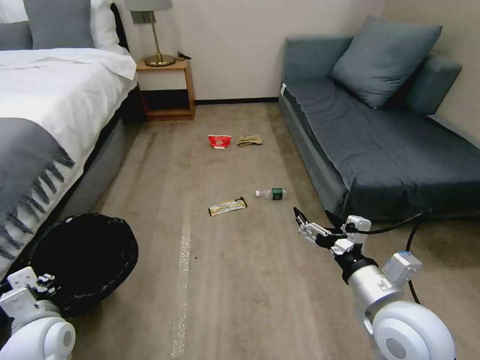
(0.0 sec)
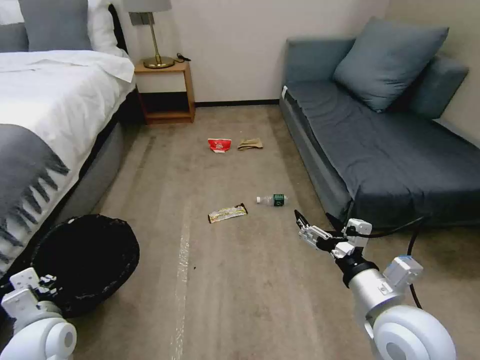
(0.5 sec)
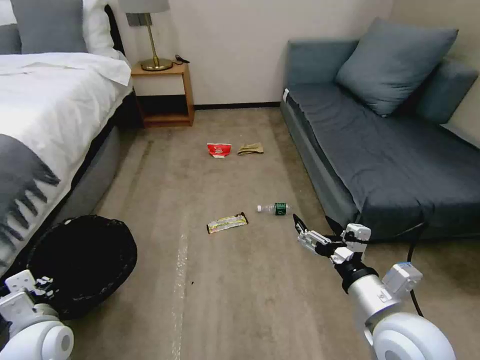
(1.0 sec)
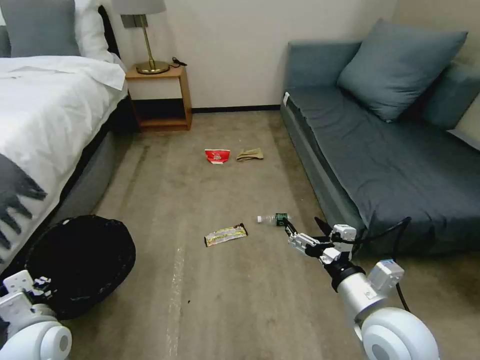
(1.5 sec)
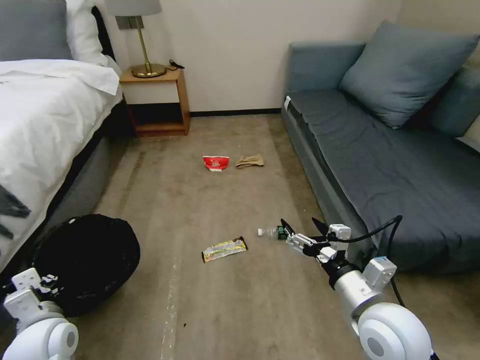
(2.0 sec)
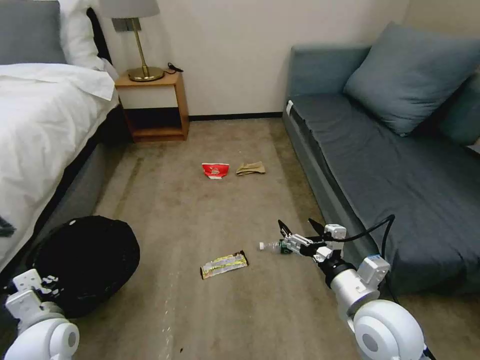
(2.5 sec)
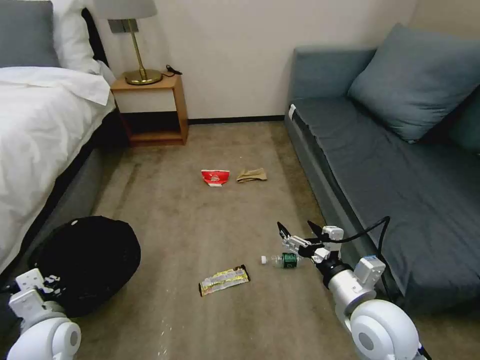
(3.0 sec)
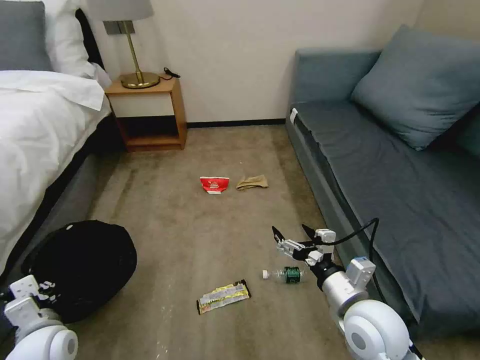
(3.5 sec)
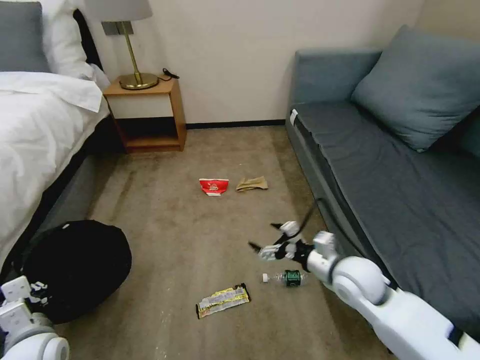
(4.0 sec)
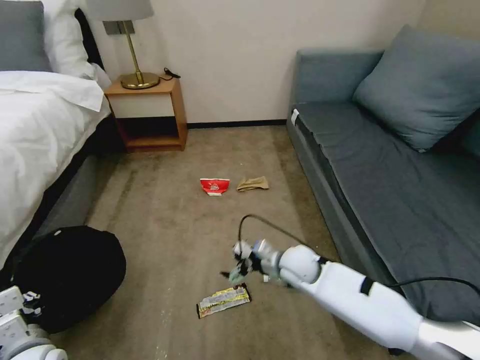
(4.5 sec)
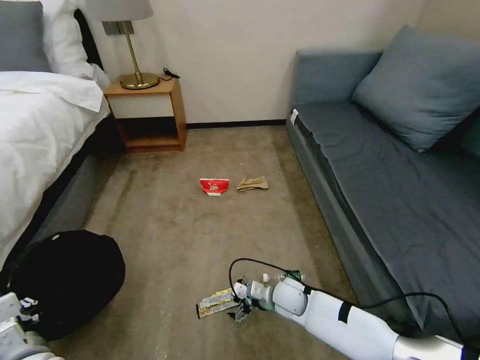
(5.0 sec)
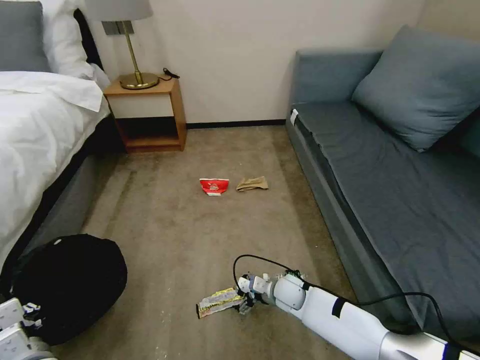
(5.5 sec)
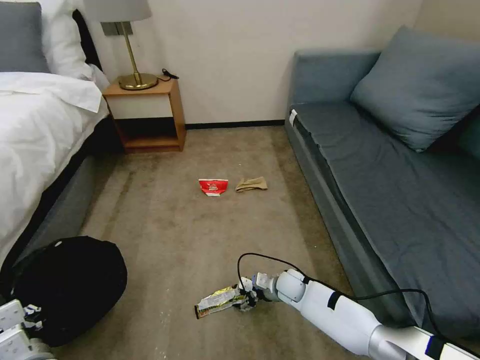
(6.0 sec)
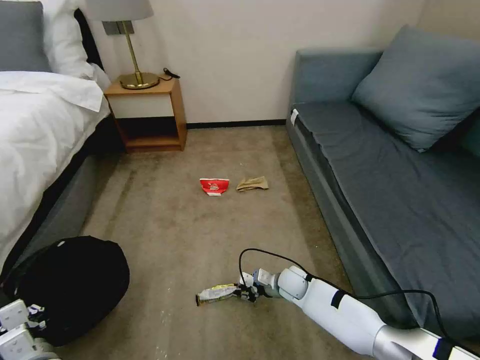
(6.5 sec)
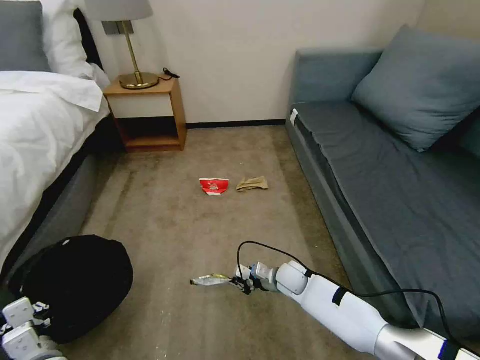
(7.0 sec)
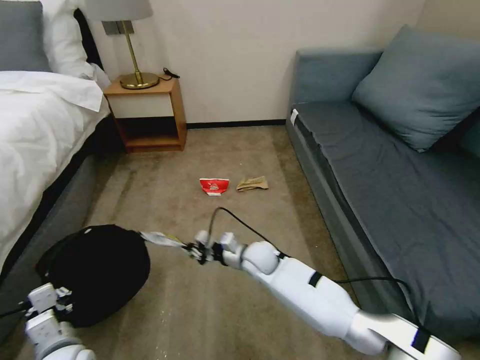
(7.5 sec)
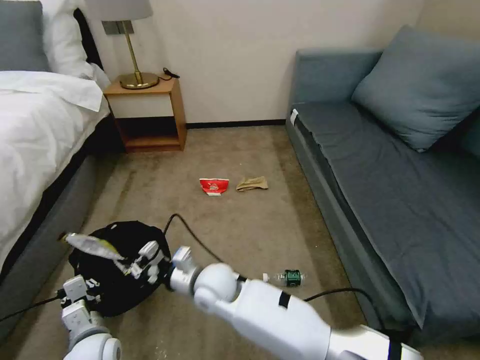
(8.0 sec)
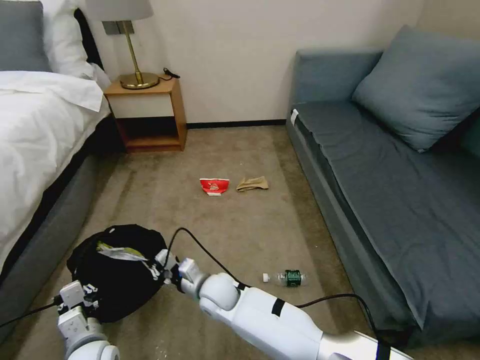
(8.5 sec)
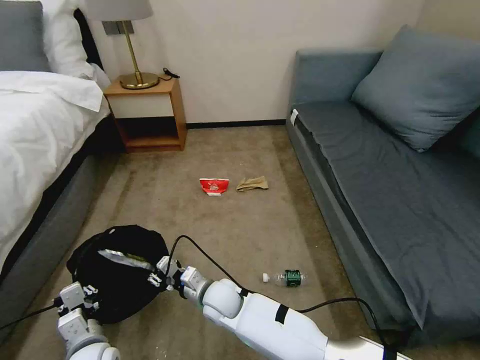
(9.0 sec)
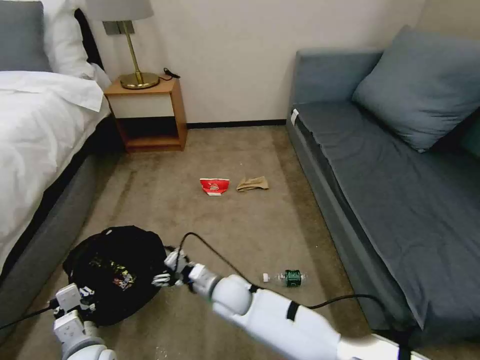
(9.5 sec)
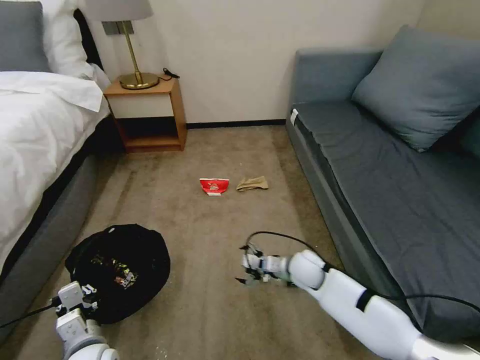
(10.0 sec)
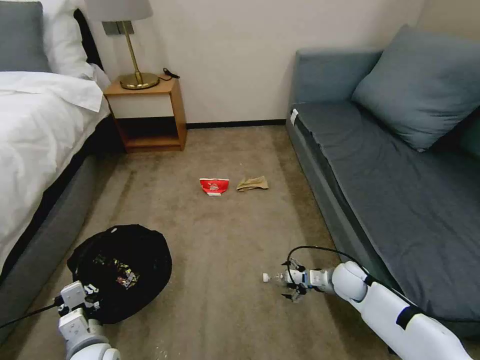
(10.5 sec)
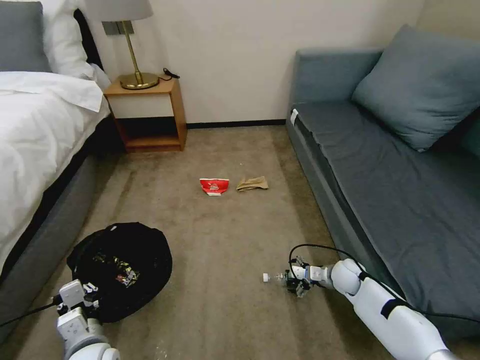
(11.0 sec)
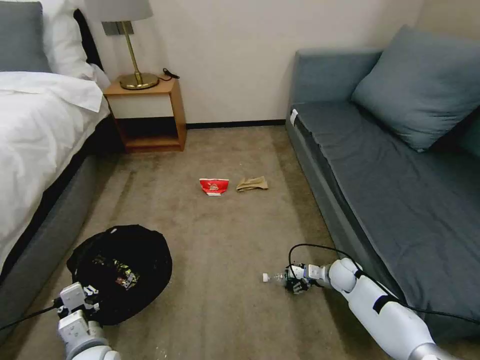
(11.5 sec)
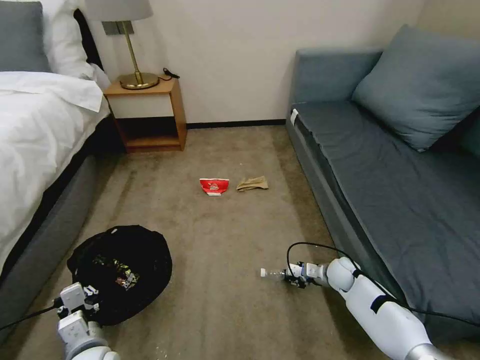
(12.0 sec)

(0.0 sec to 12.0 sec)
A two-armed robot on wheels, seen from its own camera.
Task of the whole recording: Pick up the trash bin, then pick up the garbage on the floor and place it into the trash bin.
2.0 sec - 4.0 sec: The right gripper heads forward, covering roughly 10 cm.
4.0 sec - 6.0 sec: The right gripper goes roughly 25 cm downward and to the left.
6.0 sec - 8.0 sec: The left gripper travels to the right by some 5 cm. The right gripper shifts some 30 cm to the left and upward, and closes its fingers.
8.0 sec - 10.0 sec: The right gripper goes about 25 cm to the right, and opens its fingers.
10.0 sec - 12.0 sec: The right gripper moves to the right and downward, about 15 cm, and closes.

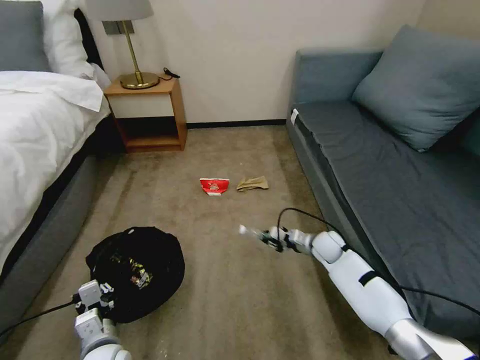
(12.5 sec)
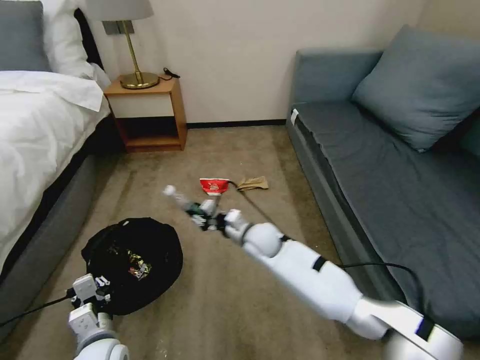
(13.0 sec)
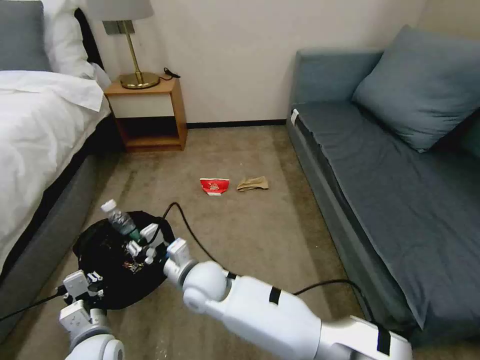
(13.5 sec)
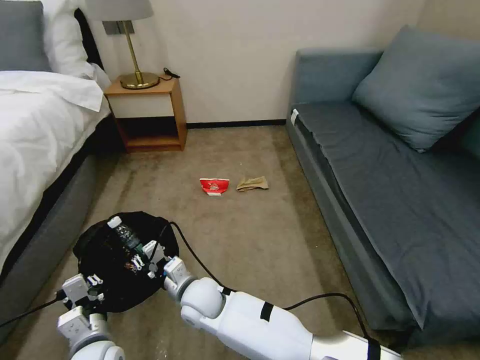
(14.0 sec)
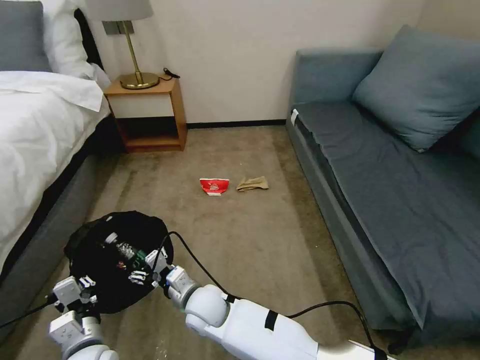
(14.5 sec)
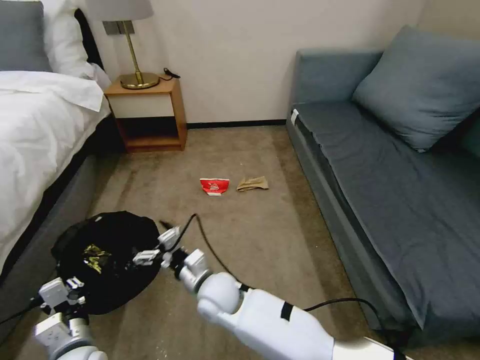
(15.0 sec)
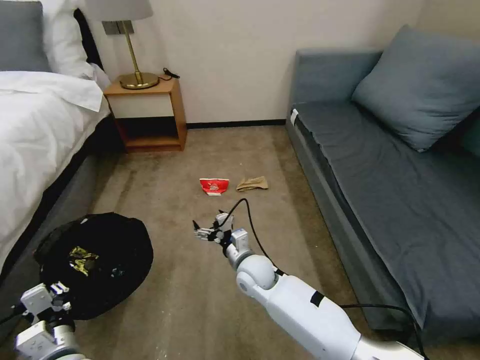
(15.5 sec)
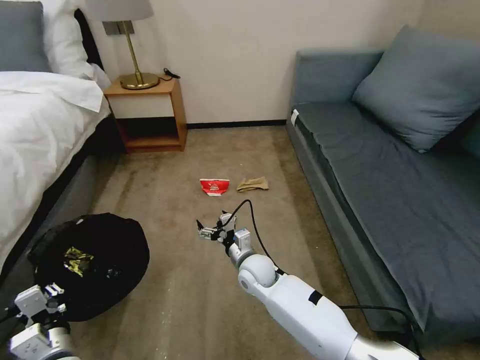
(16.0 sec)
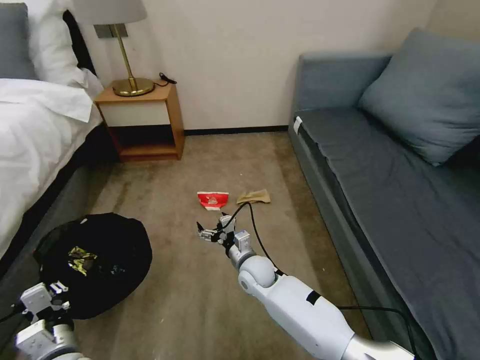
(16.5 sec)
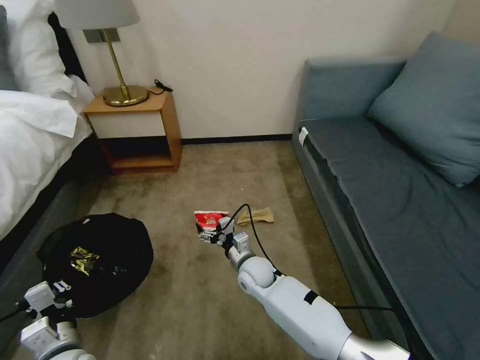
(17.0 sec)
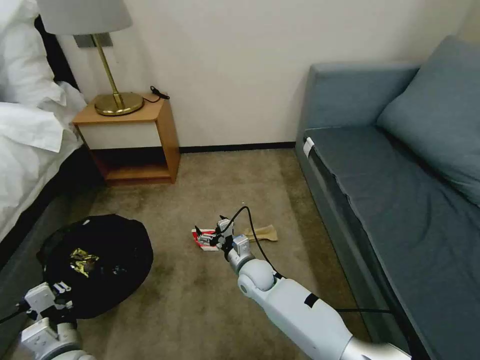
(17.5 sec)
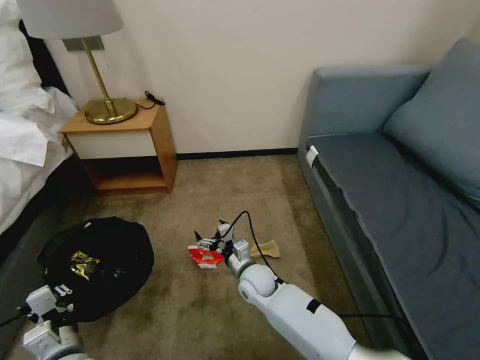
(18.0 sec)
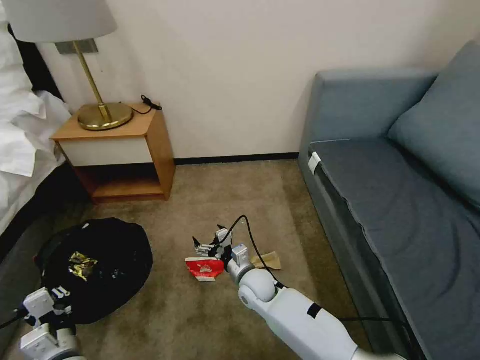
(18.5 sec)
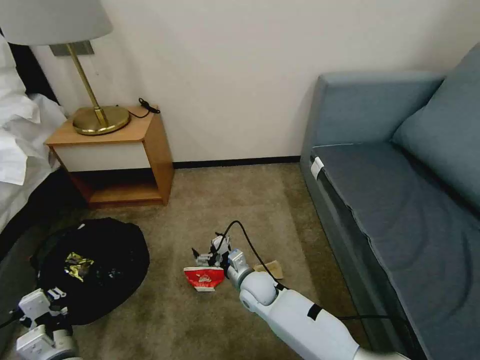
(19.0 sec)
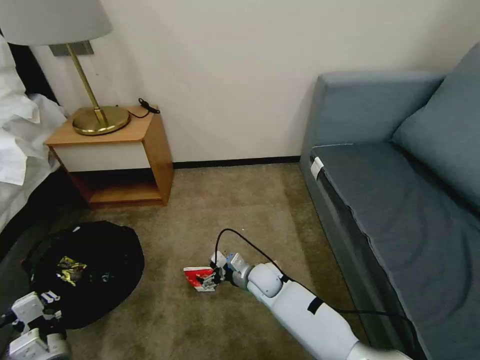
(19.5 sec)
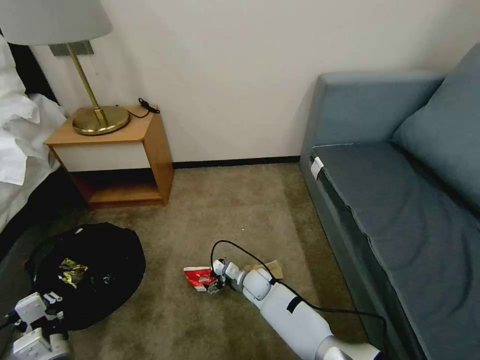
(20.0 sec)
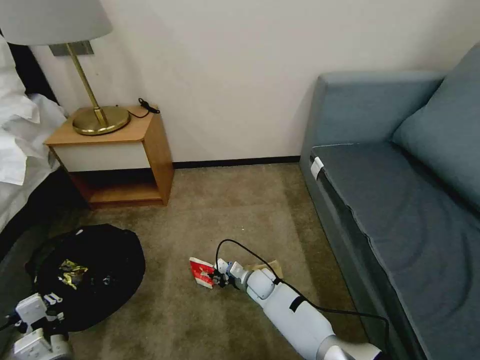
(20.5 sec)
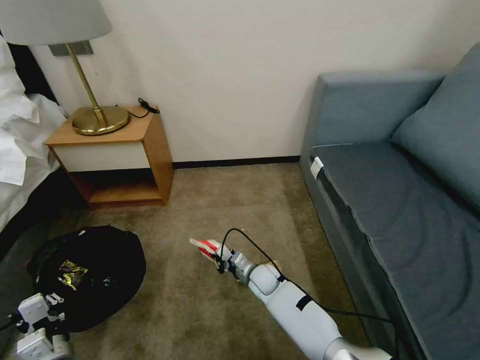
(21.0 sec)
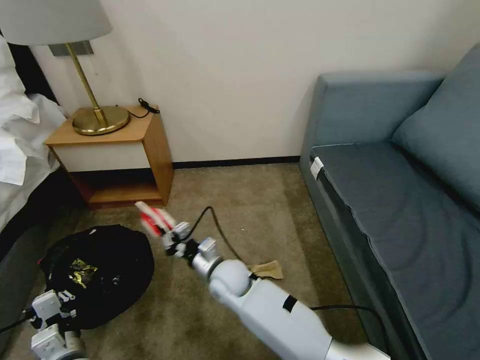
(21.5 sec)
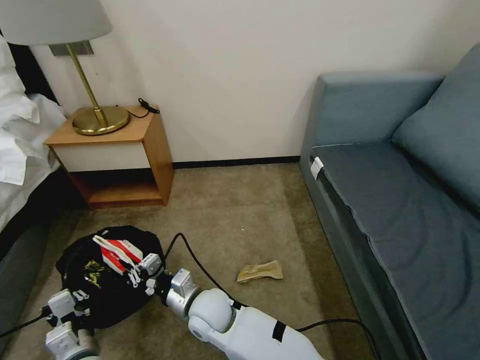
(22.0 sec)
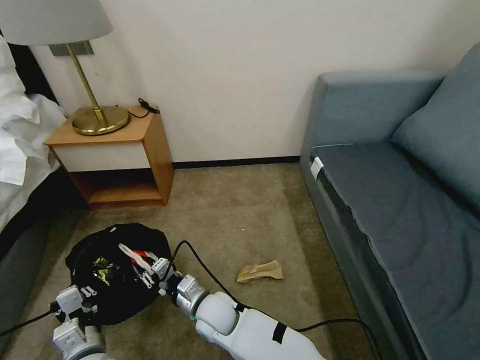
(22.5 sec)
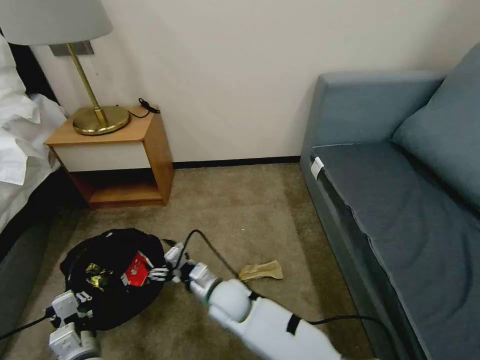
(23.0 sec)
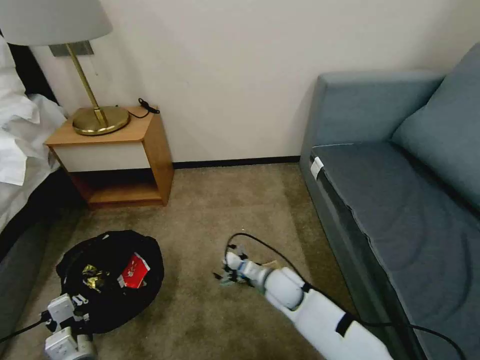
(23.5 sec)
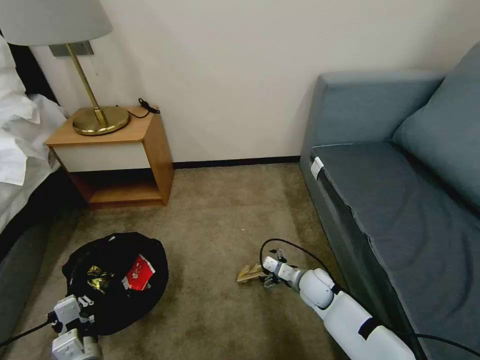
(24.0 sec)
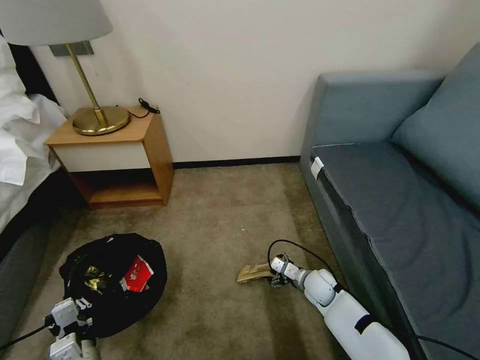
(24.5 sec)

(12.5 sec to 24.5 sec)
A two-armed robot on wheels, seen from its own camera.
Task of the whole recording: Pick up the trash bin, then pick up the garbage on the floor and place it into the trash bin.
12.5 sec - 14.5 sec: The right gripper heads to the left and backward, covering approximately 40 cm, and opens its fingers.
14.5 sec - 16.5 sec: The right gripper goes approximately 15 cm to the right and forward.
18.5 sec - 20.5 sec: The right gripper moves downward, some 10 cm, and closes.
20.5 sec - 22.5 sec: The right gripper travels to the left, upward and backward by roughly 20 cm. Meanwhile the left gripper shifts by approximately 5 cm.
22.5 sec - 24.5 sec: The right gripper heads to the right, covering roughly 30 cm, and opens up.

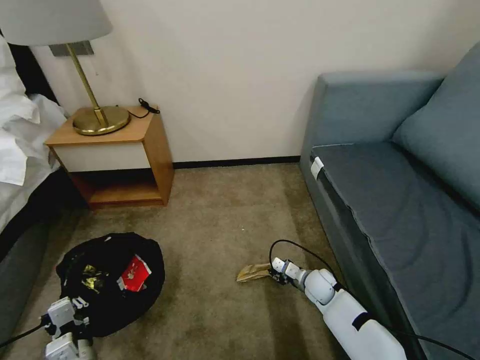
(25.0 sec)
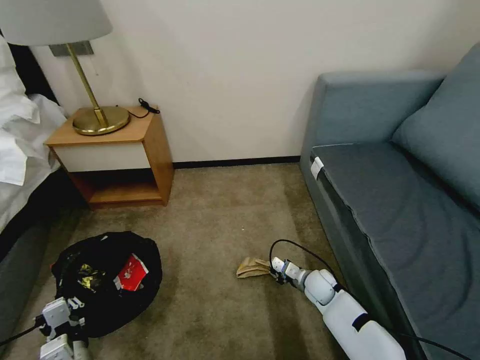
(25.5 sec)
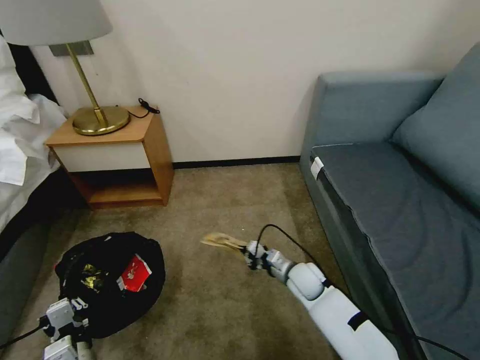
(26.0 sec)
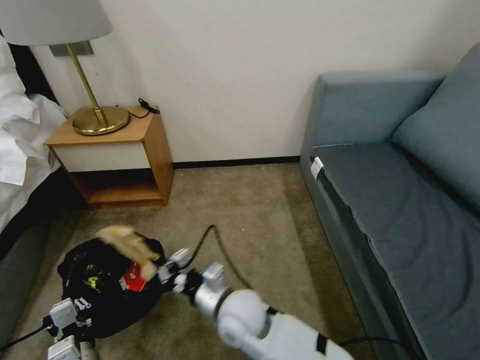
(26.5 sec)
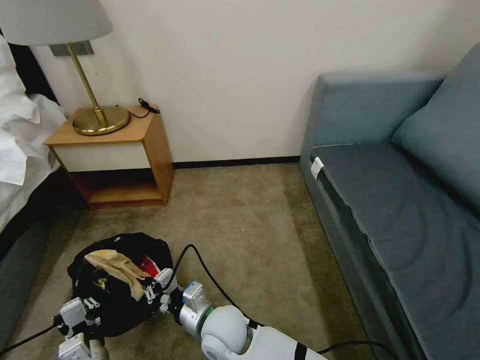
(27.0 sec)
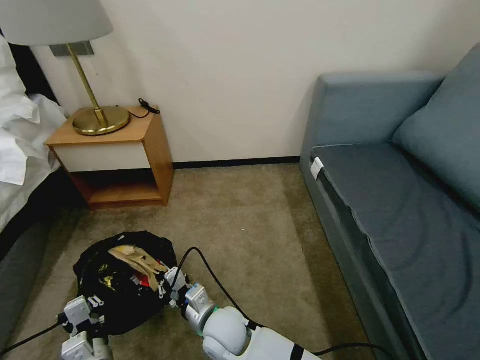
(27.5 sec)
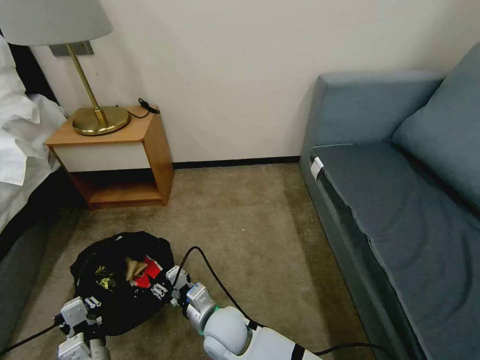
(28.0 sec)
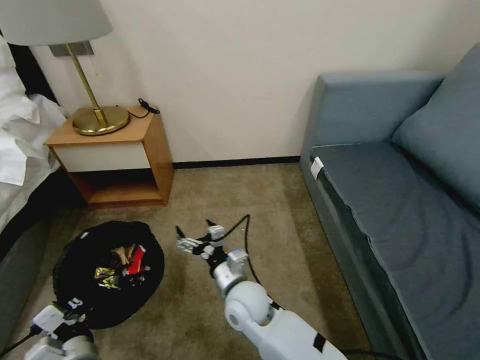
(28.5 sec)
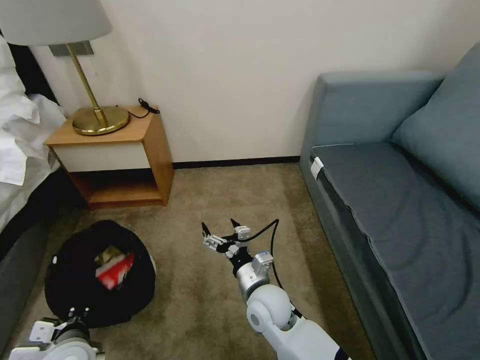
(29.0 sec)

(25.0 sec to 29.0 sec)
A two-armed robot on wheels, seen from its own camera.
Task of the whole recording: Pick up the trash bin, then pick up the garbage on the floor and place it into the trash bin.
25.0 sec - 27.0 sec: The right gripper travels to the left, backward and upward by roughly 35 cm.
27.0 sec - 29.0 sec: The left gripper heads upward, covering roughly 5 cm. The right gripper moves to the right, some 10 cm, and opens up.
